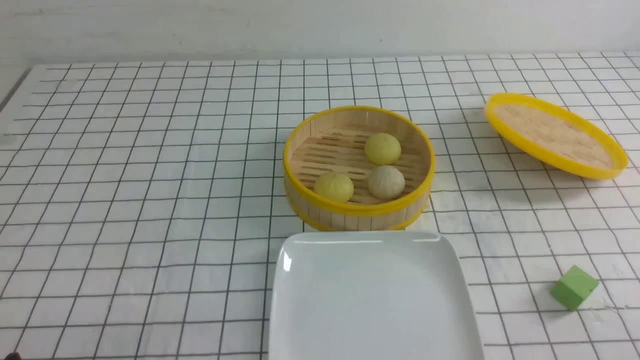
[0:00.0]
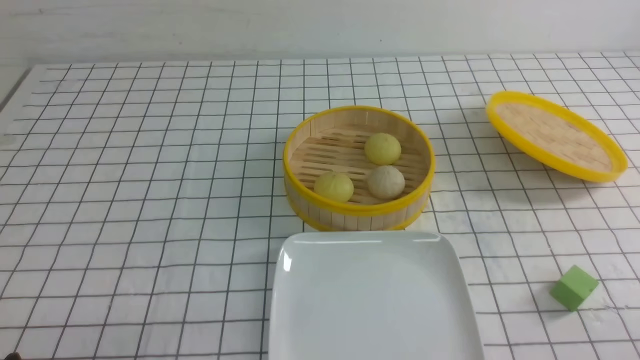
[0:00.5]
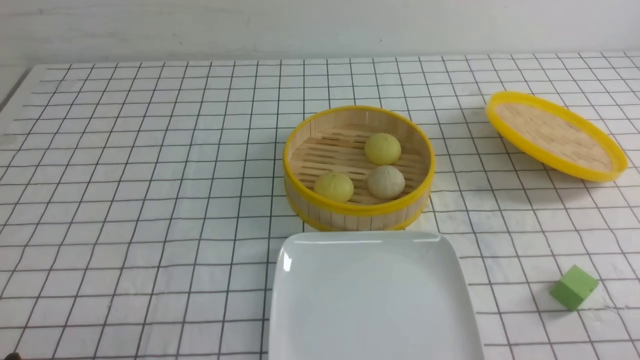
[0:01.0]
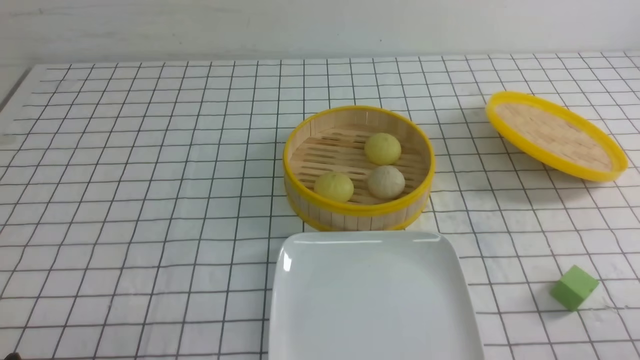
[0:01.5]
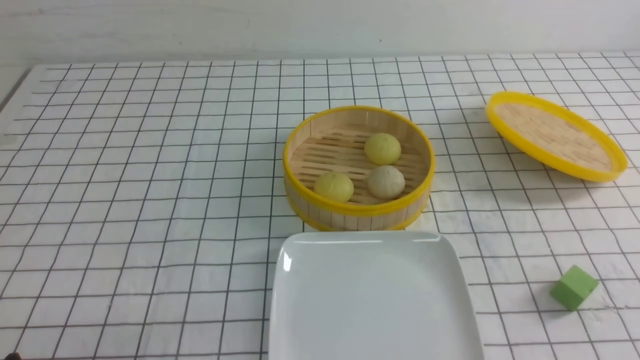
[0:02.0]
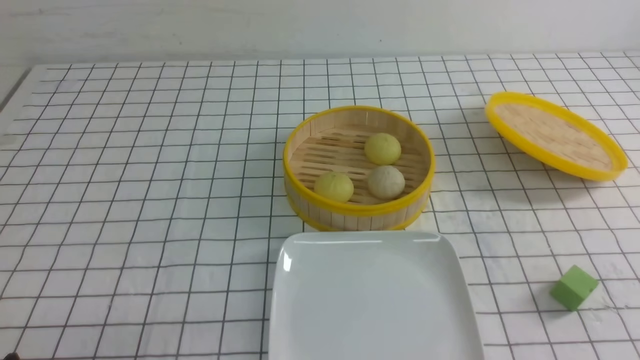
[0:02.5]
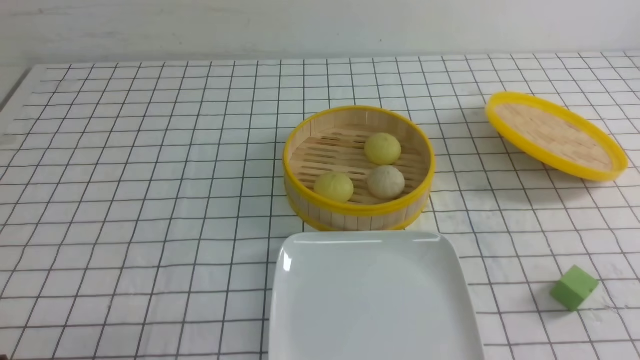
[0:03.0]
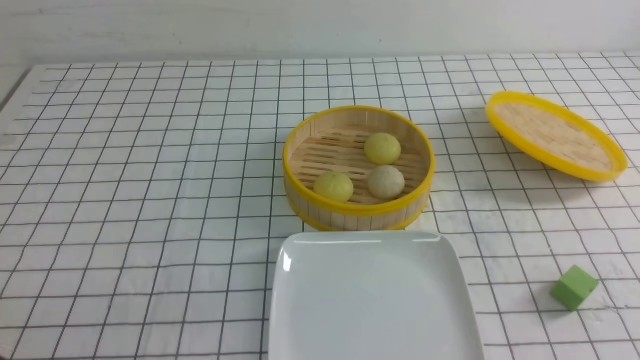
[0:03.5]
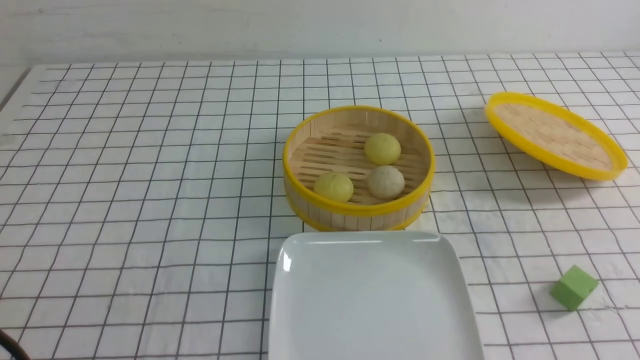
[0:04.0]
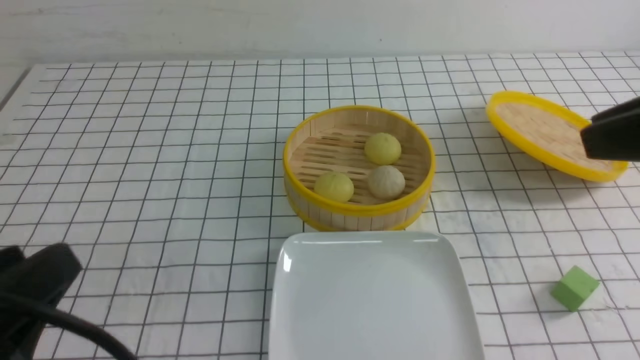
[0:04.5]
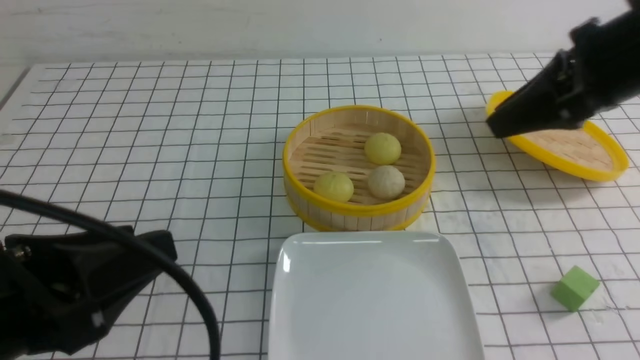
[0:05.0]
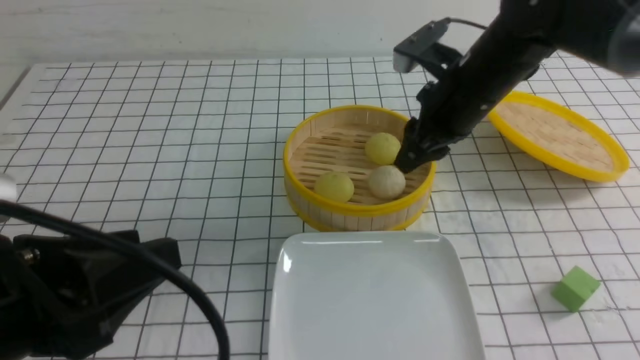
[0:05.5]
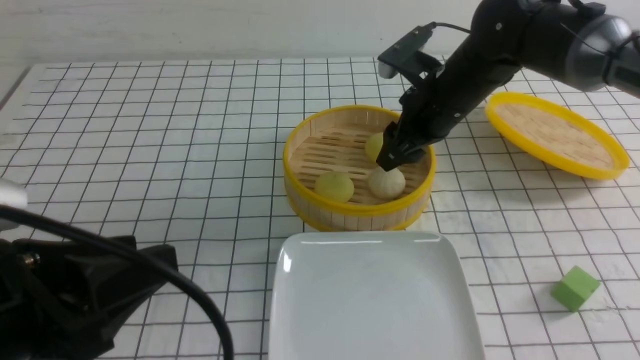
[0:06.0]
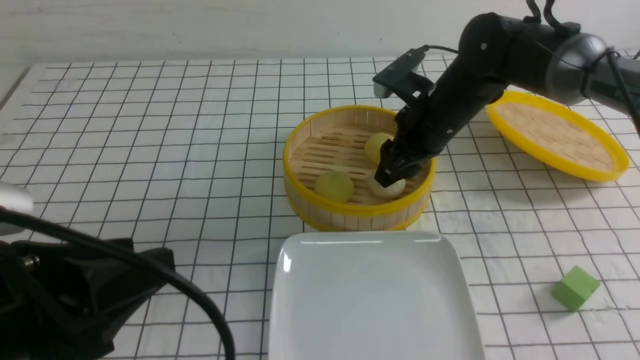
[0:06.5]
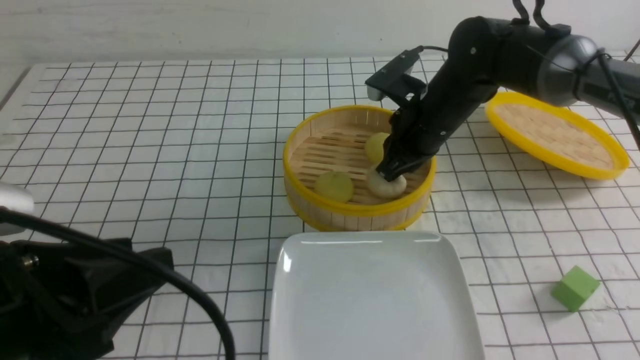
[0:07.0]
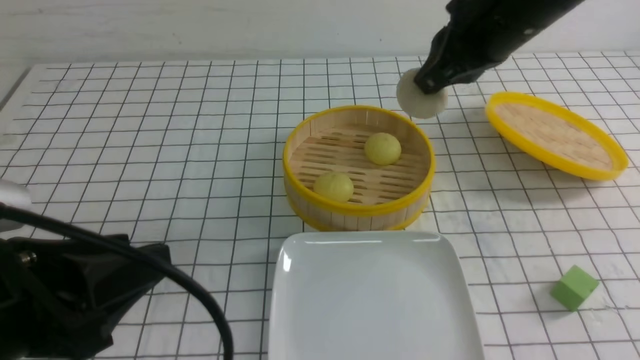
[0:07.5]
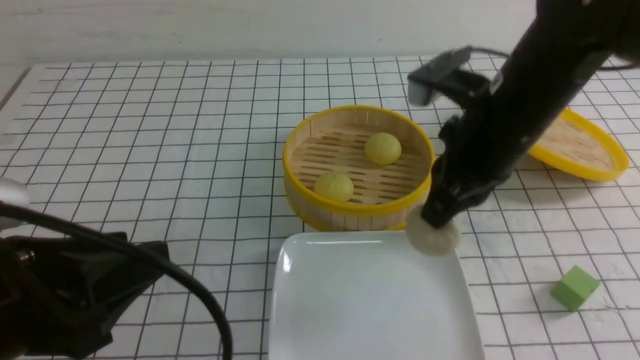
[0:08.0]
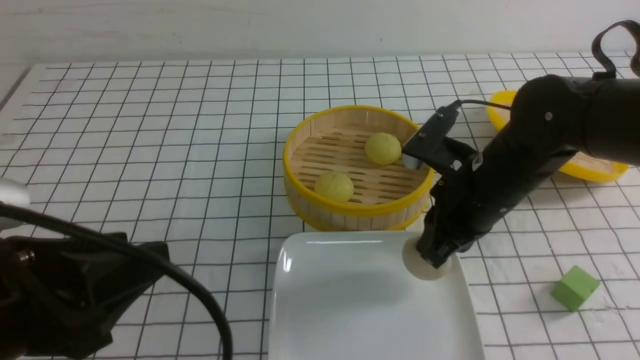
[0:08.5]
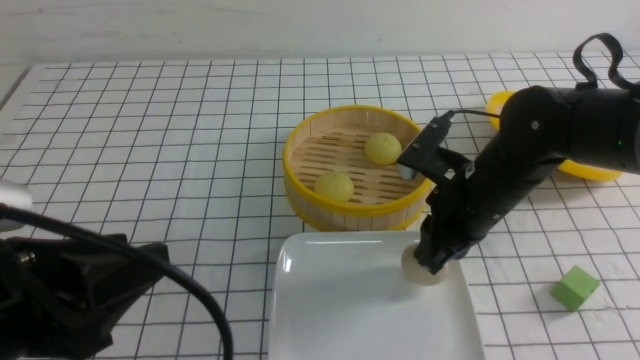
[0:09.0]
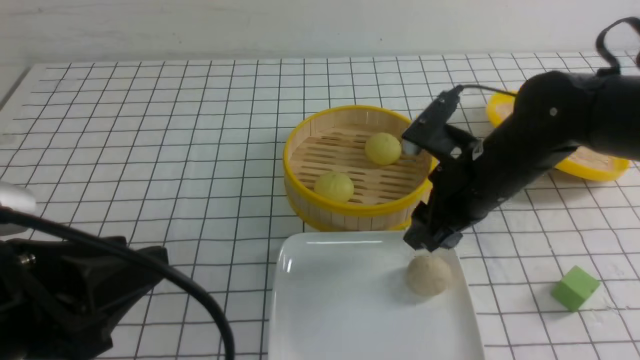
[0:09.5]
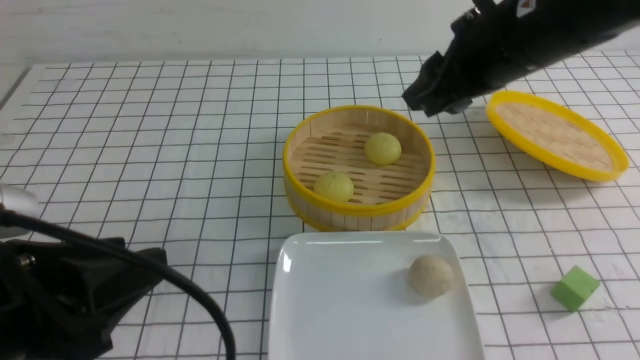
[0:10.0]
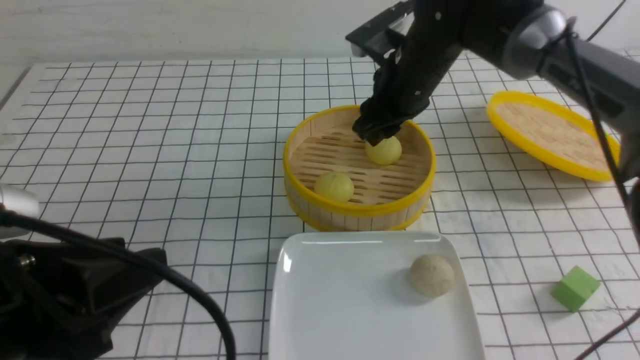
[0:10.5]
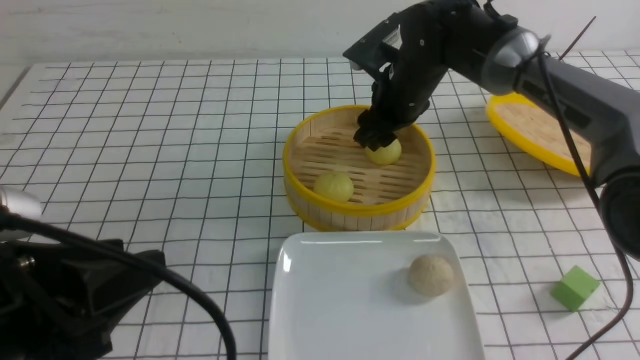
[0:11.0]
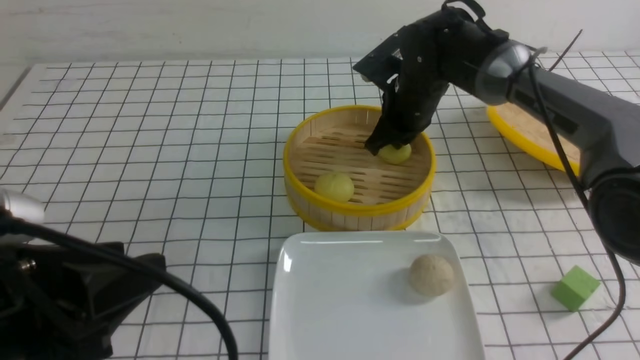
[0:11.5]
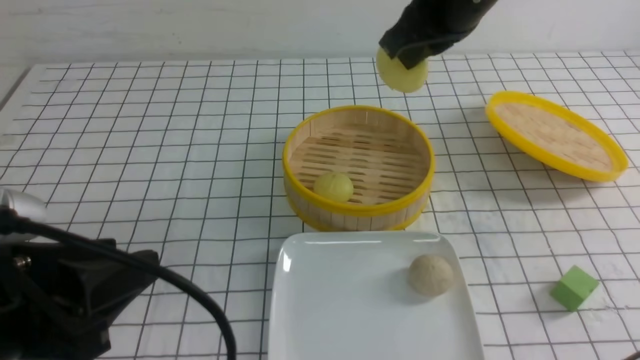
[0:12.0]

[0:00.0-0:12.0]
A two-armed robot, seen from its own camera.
Step, 0:00.0 to 0:07.0: use the right arm to grab the steamed stuffed bun that is closest to it.
Step, 0:07.5 to 0:09.5: use the right arm to put the steamed stuffed bun into the plate.
Step, 0:10.0 to 0:11.5: use the right arm to grab the steamed stuffed bun that is closest to it.
0:04.0 to 0:06.0: The left gripper heads forward, to the right and upward, covering roughly 10 cm; the right gripper goes some 40 cm forward and downward, and opens.
0:06.0 to 0:08.0: The right gripper goes some 10 cm backward, moves about 10 cm upward and comes back, and closes.
0:08.0 to 0:10.0: The right gripper goes approximately 5 cm upward, and opens up.
0:10.0 to 0:12.0: The right gripper reaches some 15 cm downward, then returns, and closes its fingers.

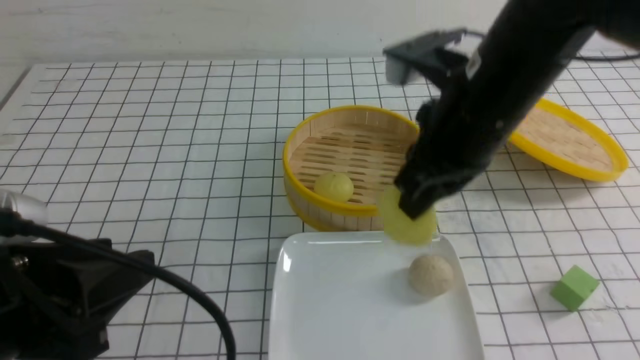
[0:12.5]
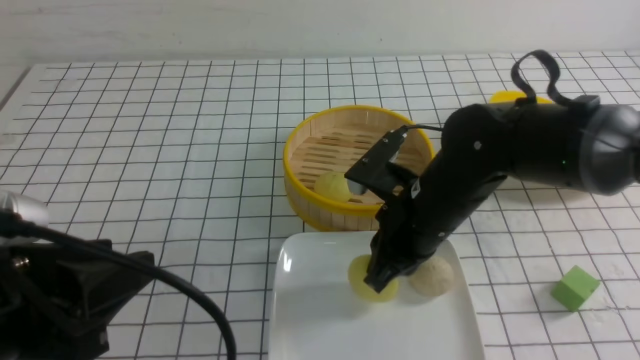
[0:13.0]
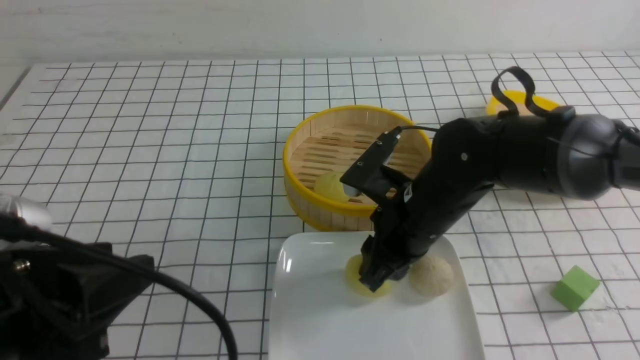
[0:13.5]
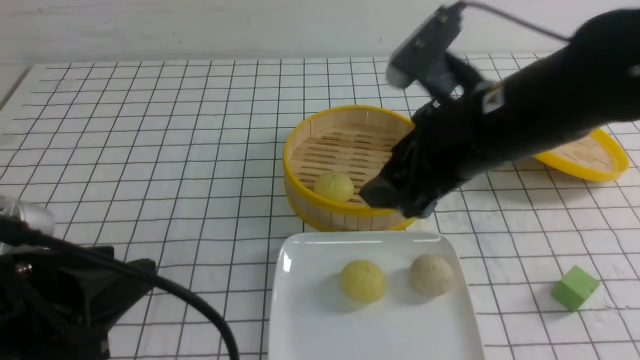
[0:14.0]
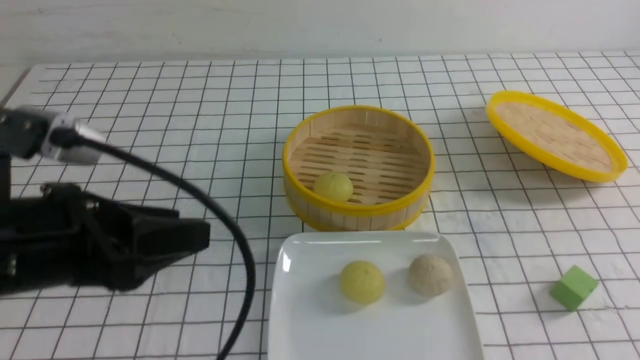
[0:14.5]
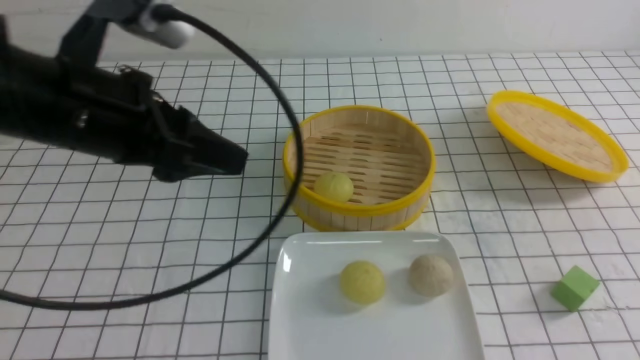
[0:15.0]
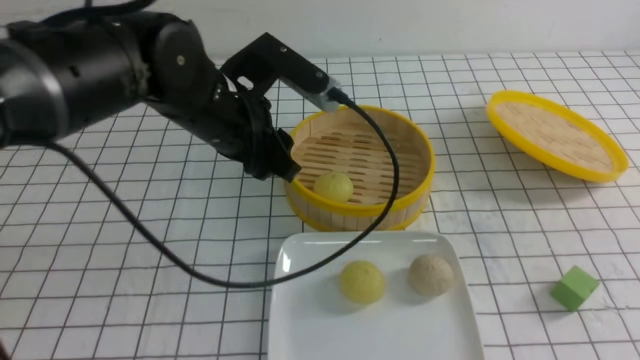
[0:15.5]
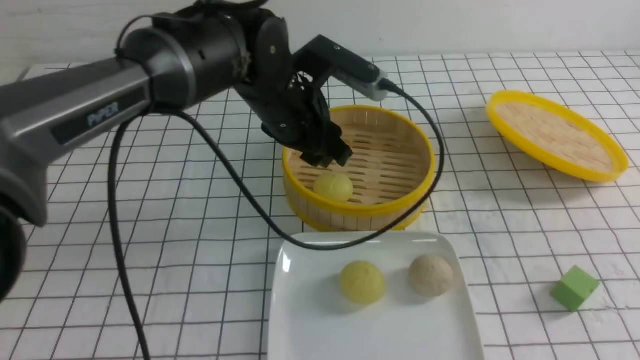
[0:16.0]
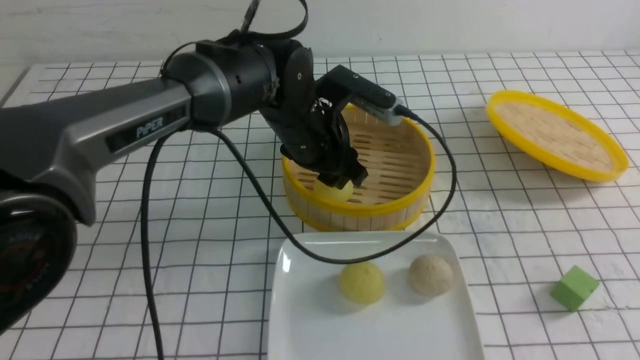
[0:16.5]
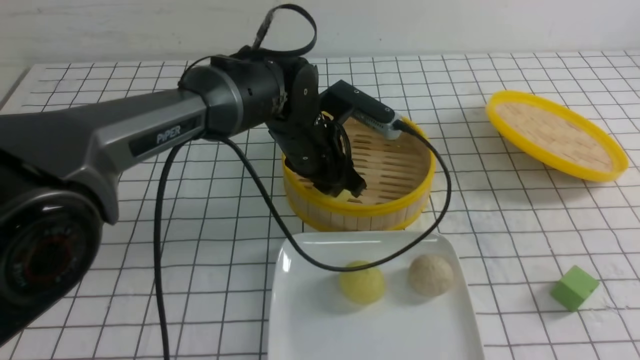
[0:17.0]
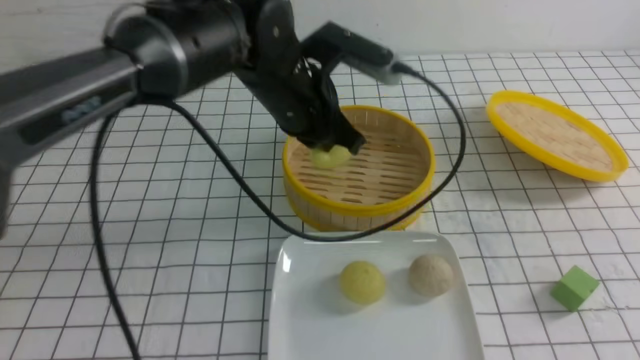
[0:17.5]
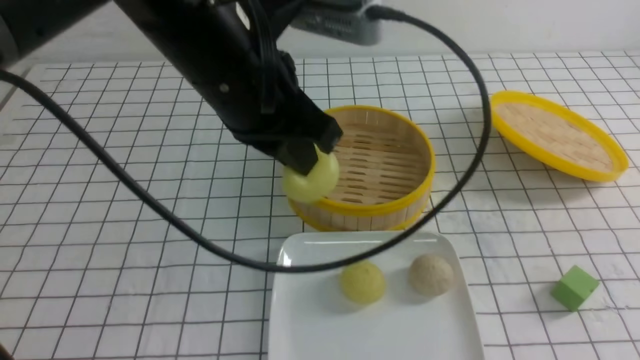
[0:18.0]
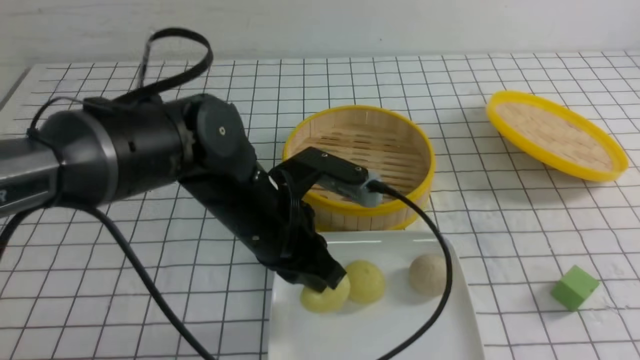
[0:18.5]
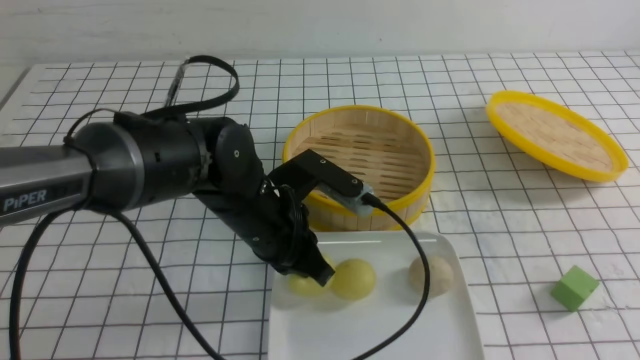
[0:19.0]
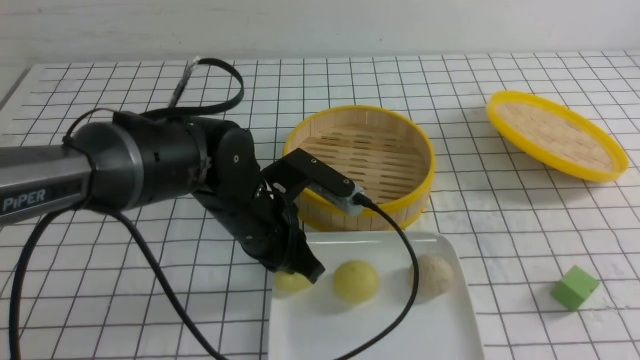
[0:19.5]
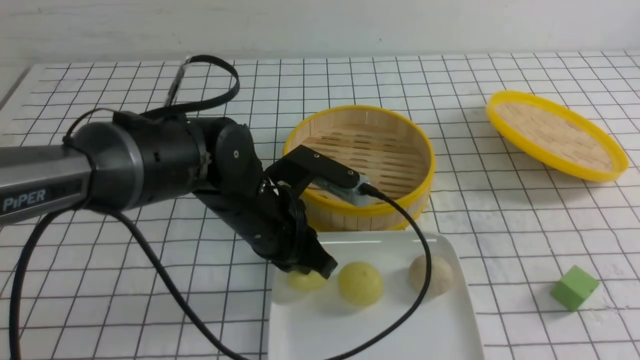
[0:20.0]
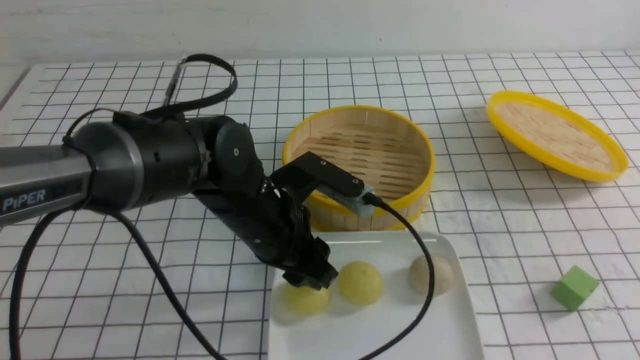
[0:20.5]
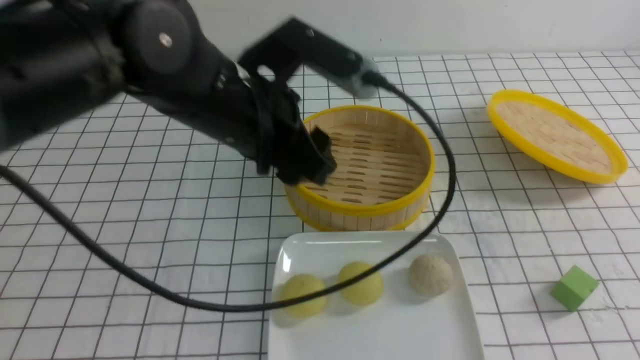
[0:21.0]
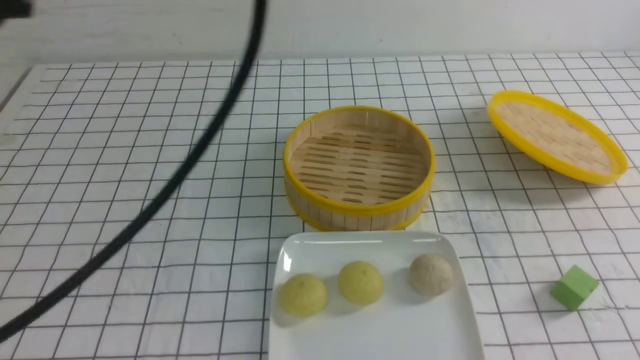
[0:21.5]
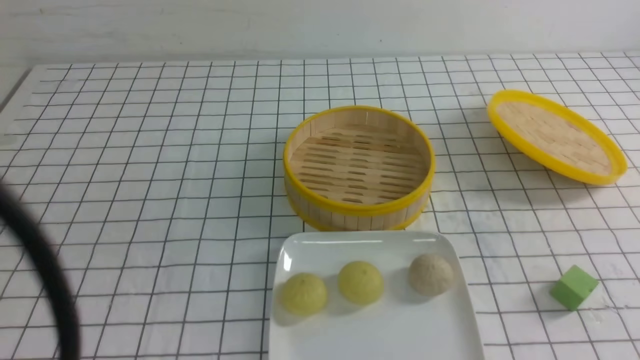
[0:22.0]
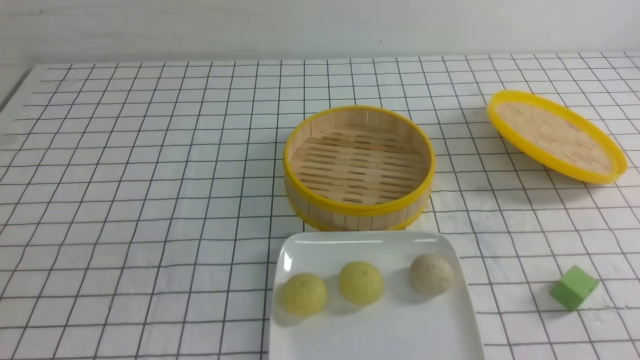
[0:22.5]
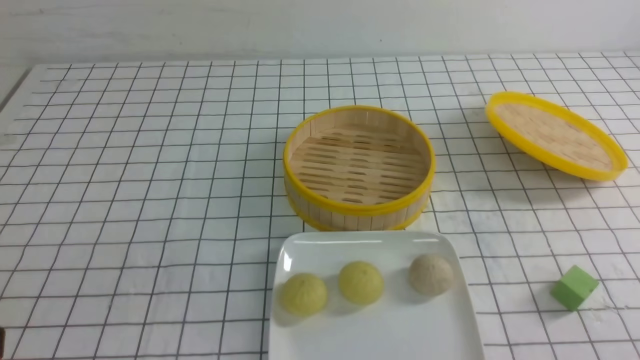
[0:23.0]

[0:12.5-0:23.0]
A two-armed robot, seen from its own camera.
Step, 0:14.0 to 0:17.0: use the left arm to grab the steamed stuffed bun that is closest to it.
Step, 0:18.0 to 0:20.5: use the left arm to put the steamed stuffed bun into the plate.
0:12.5 to 0:14.5: The left gripper moves forward, about 5 cm, while the right gripper travels backward, to the right and upward by some 25 cm, and opens.
0:14.5 to 0:16.5: The left gripper travels forward and to the right by about 30 cm. The right gripper travels downward by some 5 cm.
0:16.5 to 0:19.0: The left gripper travels backward by about 10 cm, moves roughly 10 cm upward and comes back, and closes.
0:19.0 to 0:21.0: The left gripper heads upward, covering some 15 cm, and opens up.
0:21.0 to 0:23.0: The left gripper moves backward and to the left, approximately 30 cm. The right gripper travels downward and backward by about 15 cm.
